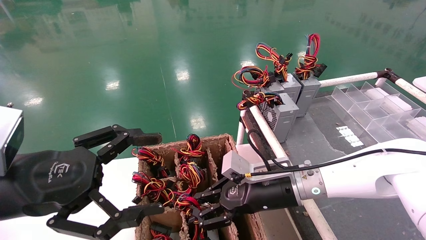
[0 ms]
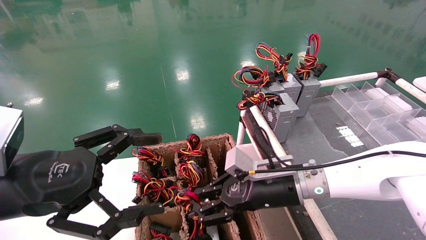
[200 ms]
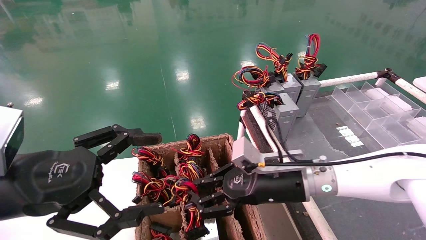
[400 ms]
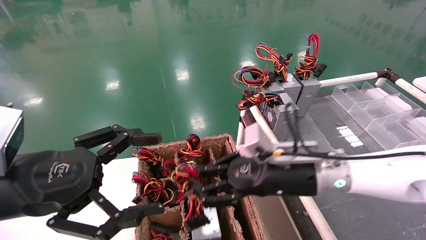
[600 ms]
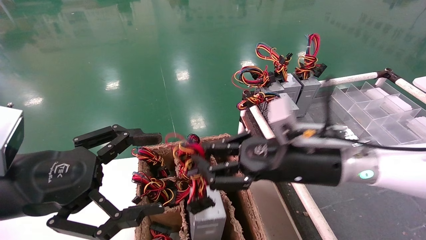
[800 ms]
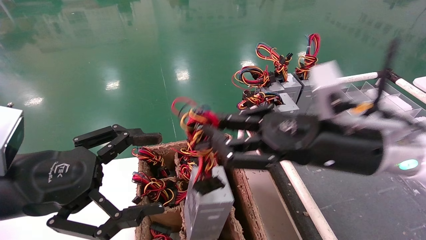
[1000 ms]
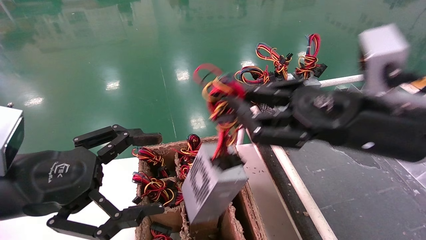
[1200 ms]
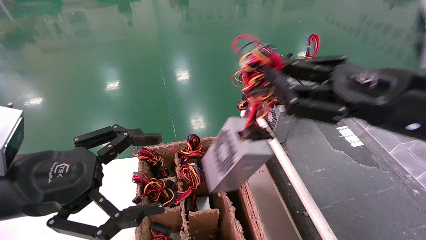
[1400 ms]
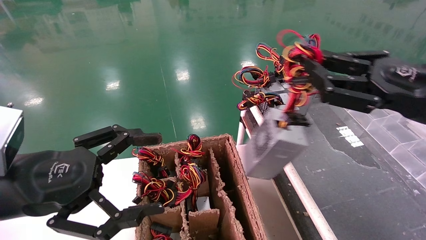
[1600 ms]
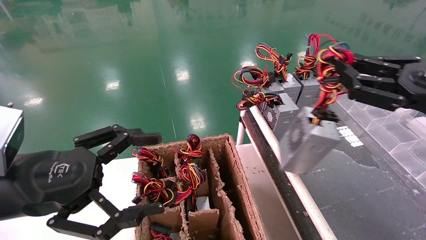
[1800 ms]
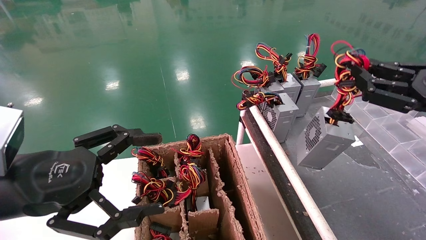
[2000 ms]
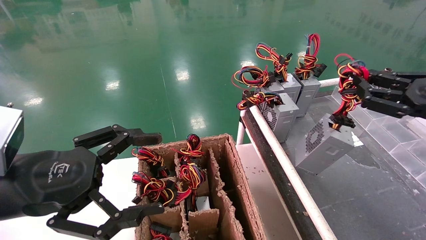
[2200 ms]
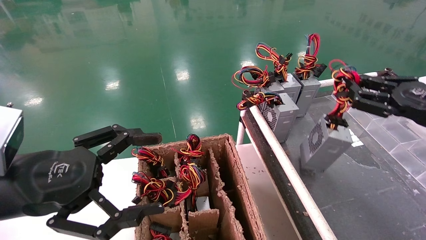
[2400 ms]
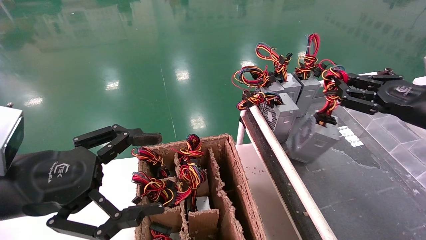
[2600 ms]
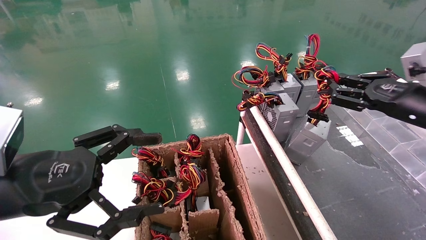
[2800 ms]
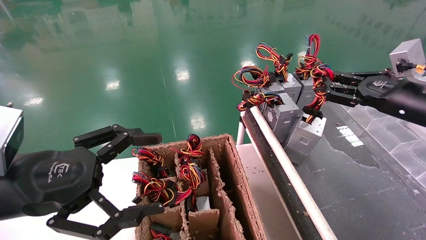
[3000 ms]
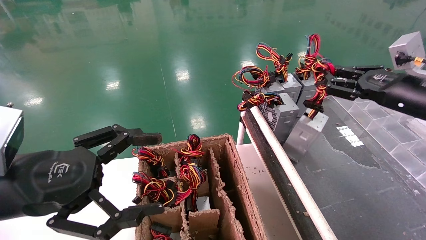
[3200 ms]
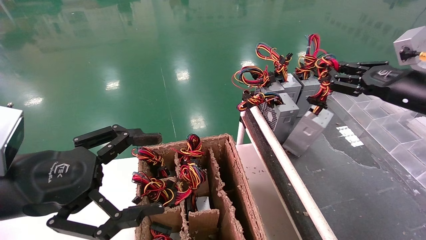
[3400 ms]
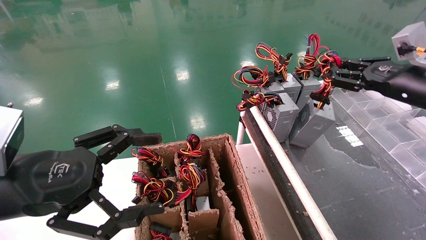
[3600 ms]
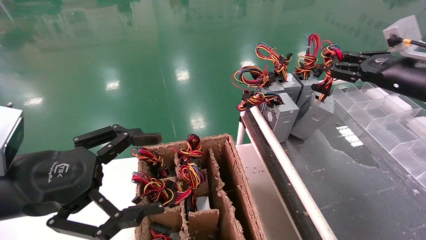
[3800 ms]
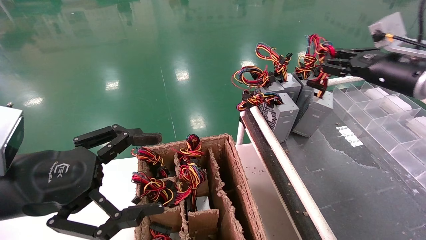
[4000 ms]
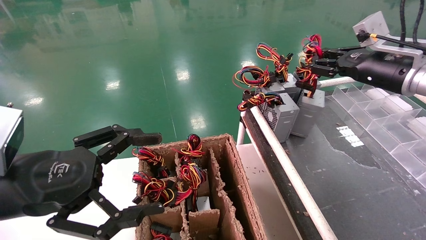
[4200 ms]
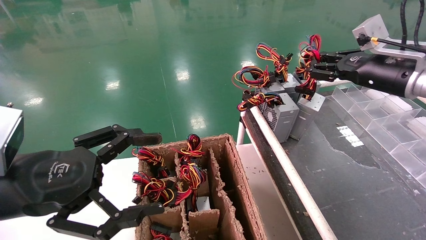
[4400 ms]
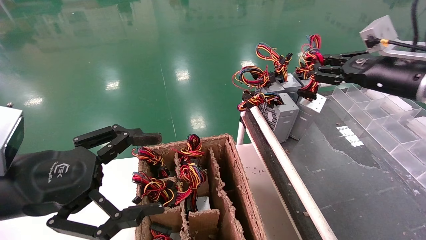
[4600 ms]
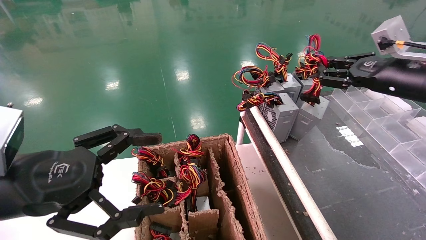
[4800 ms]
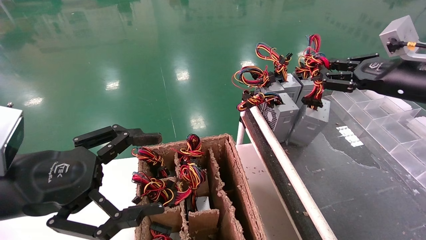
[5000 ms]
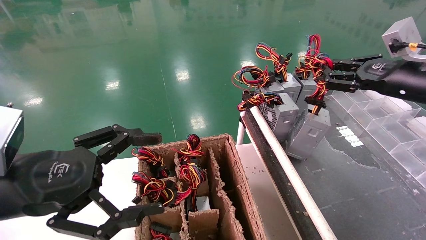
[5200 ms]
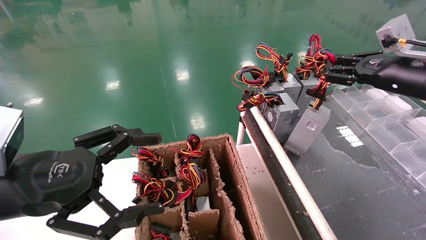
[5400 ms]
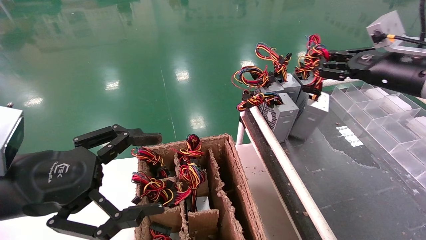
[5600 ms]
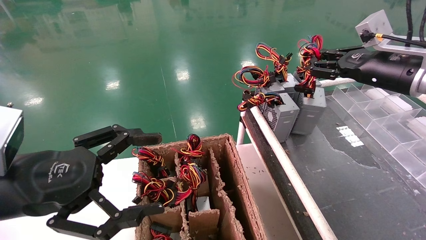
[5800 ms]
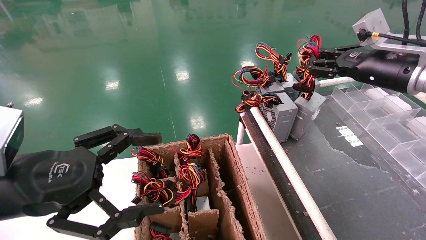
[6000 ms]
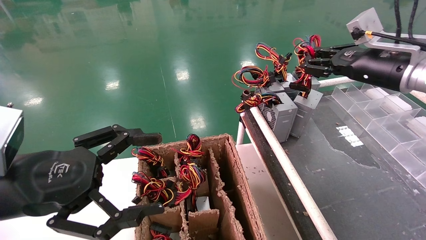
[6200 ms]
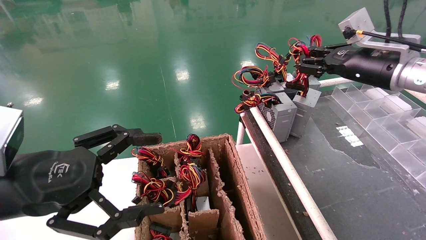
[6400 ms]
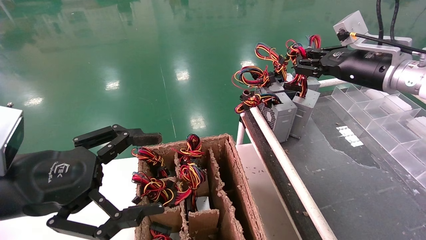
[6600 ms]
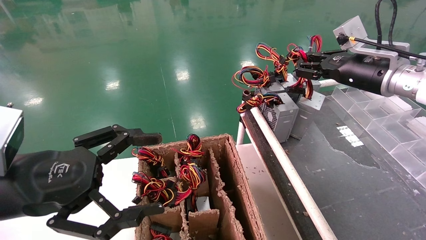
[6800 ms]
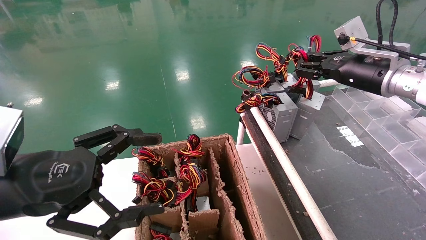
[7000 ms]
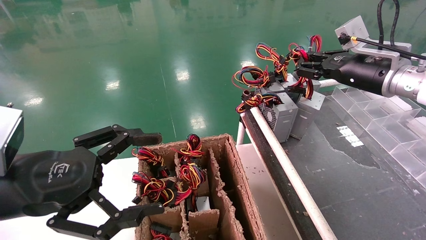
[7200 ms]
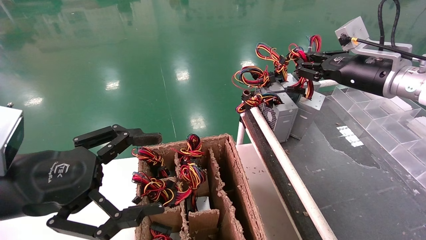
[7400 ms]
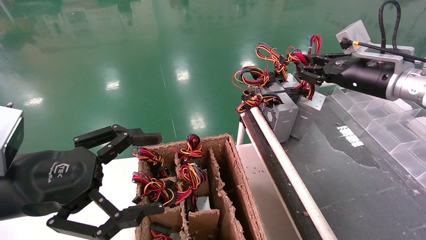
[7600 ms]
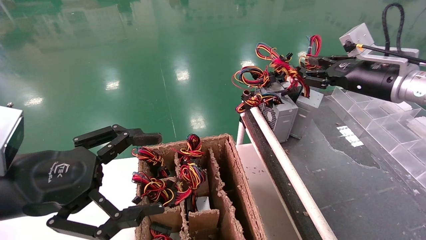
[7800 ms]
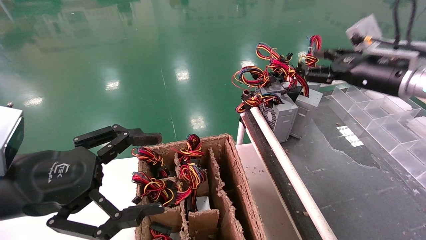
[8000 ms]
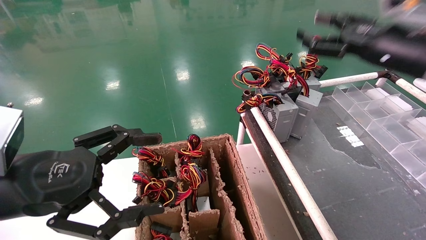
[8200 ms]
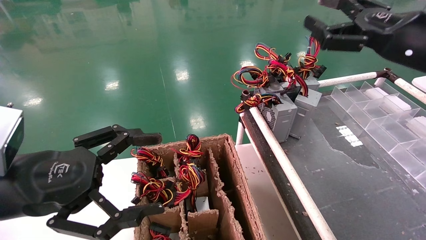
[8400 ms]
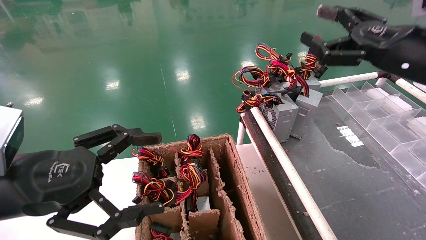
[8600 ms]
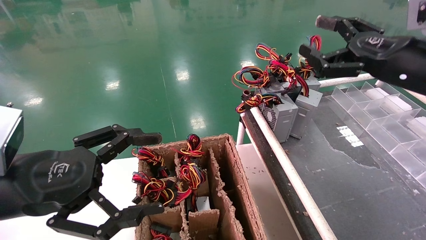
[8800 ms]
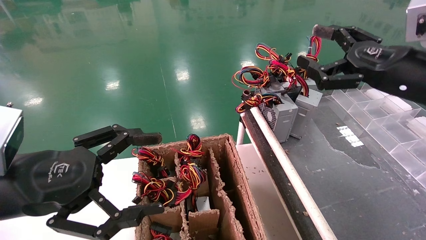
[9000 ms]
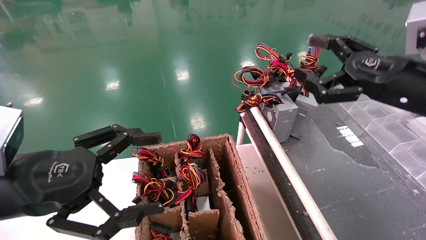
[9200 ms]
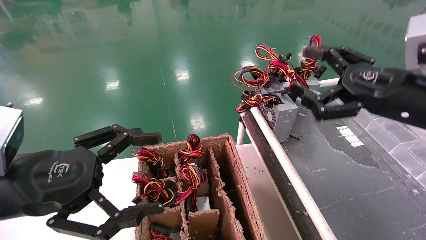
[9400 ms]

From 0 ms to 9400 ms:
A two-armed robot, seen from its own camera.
Step, from 400 ms to 7400 ms: Place the power supply on the operating table.
From 0 ms to 1600 ms: The right gripper goes about 25 cm to the right, upward and backward.
From 1600 ms to 3200 ms: The right gripper goes roughly 15 cm forward and to the right.
From 4800 ms to 6200 ms: The right gripper ends up approximately 5 cm from where it was.
From 6200 ms to 7800 ms: The grippers make only small movements.
From 7800 ms to 9400 ms: The right gripper heads backward, covering some 15 cm, and opens its fingers.
